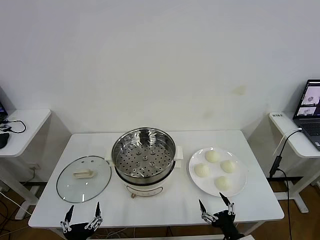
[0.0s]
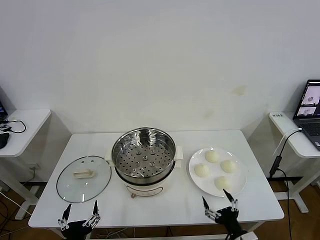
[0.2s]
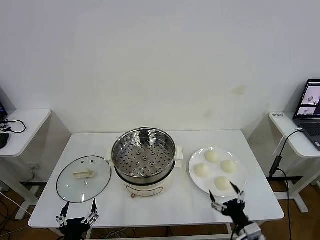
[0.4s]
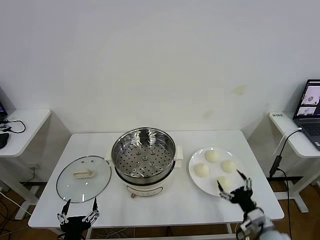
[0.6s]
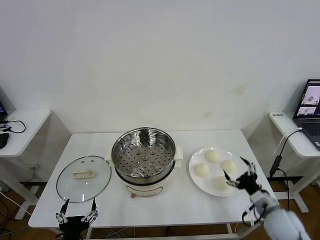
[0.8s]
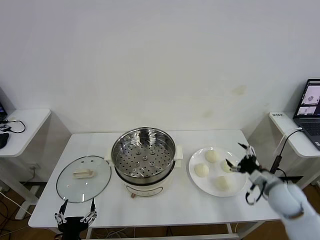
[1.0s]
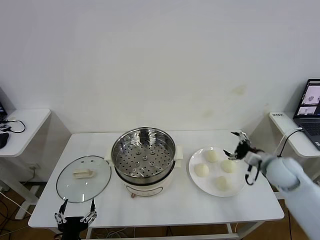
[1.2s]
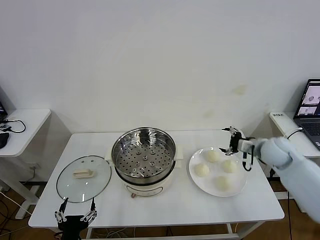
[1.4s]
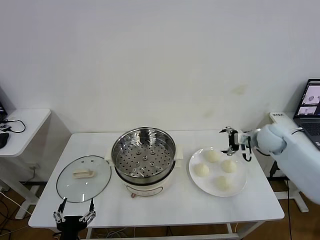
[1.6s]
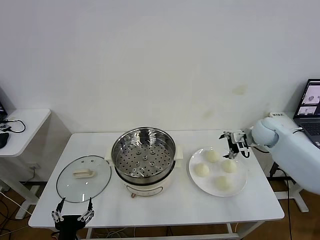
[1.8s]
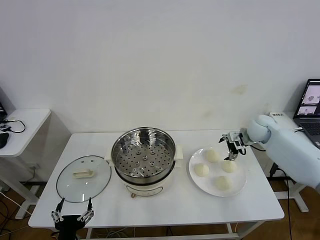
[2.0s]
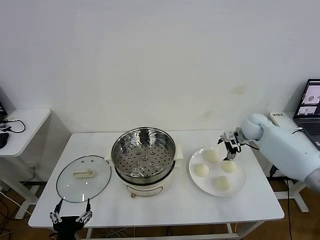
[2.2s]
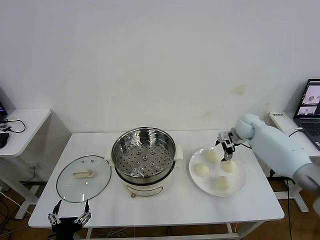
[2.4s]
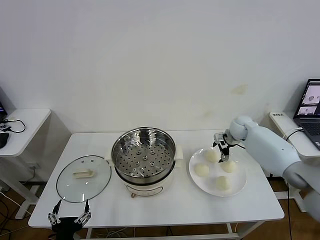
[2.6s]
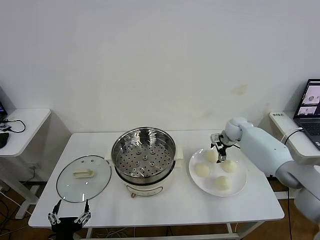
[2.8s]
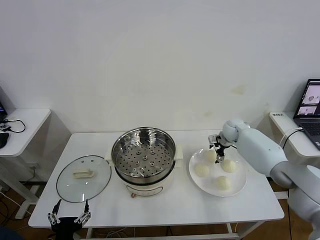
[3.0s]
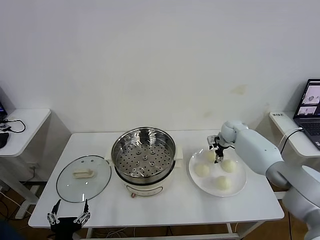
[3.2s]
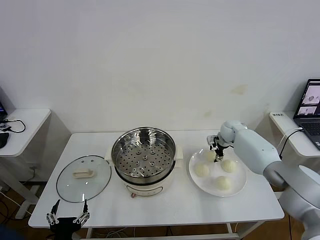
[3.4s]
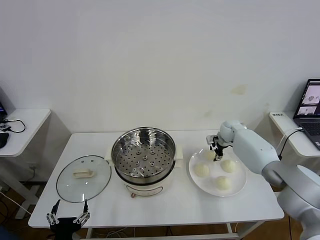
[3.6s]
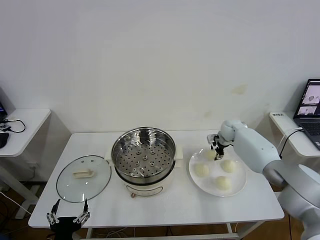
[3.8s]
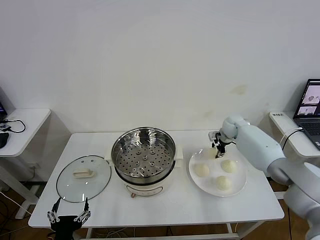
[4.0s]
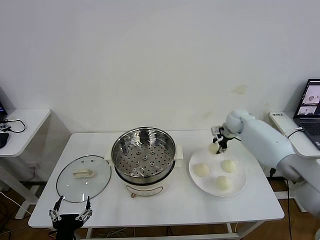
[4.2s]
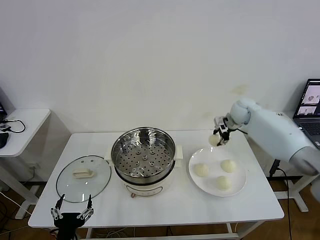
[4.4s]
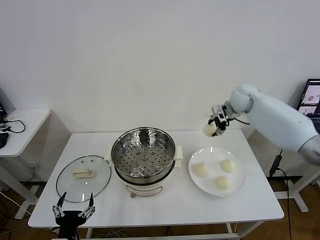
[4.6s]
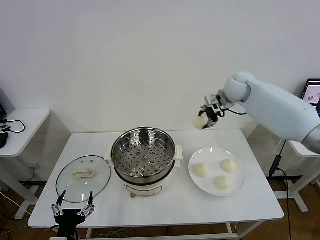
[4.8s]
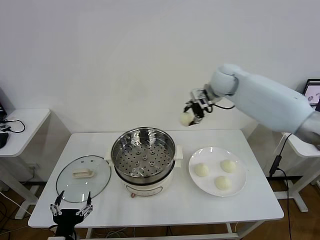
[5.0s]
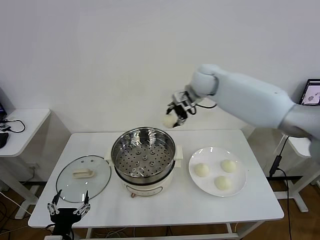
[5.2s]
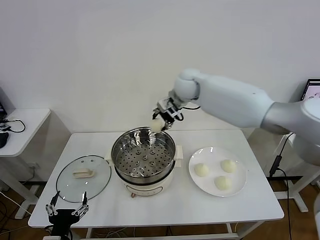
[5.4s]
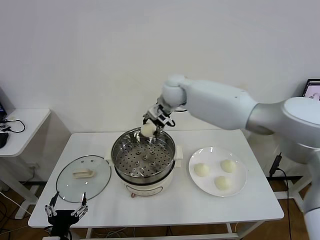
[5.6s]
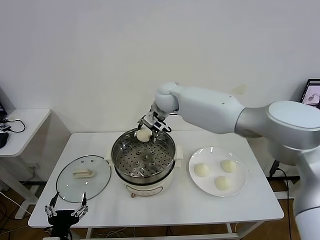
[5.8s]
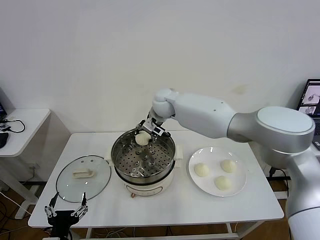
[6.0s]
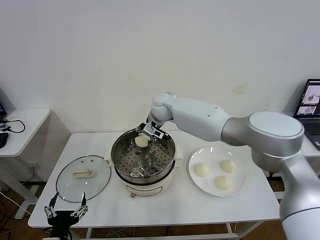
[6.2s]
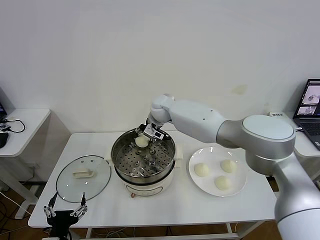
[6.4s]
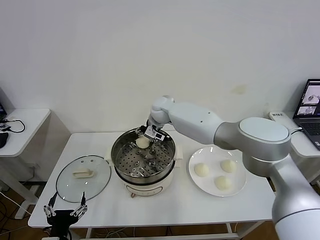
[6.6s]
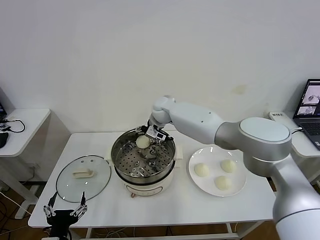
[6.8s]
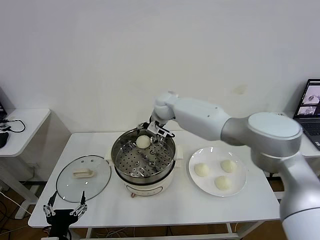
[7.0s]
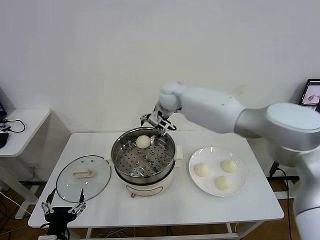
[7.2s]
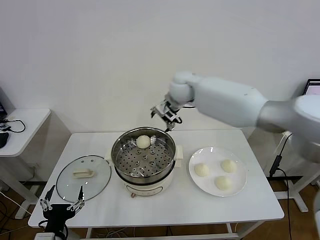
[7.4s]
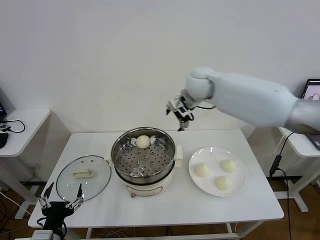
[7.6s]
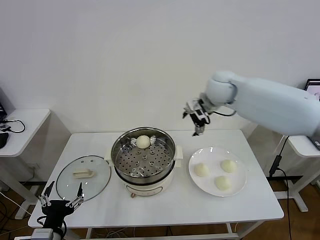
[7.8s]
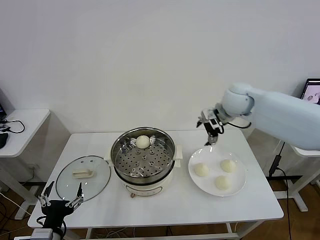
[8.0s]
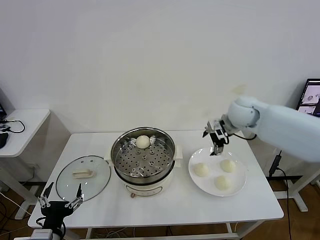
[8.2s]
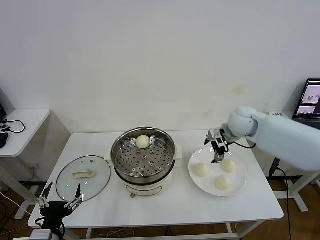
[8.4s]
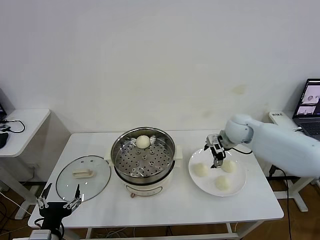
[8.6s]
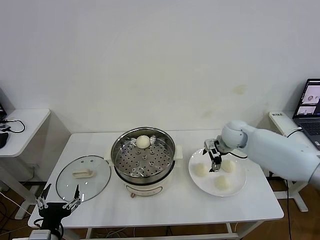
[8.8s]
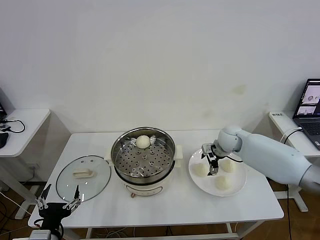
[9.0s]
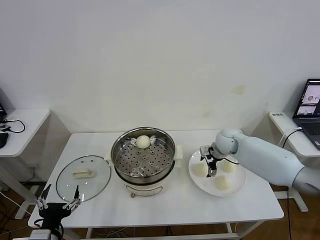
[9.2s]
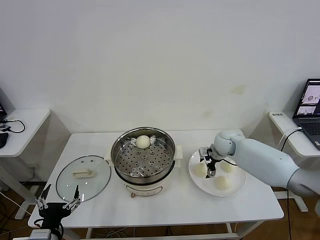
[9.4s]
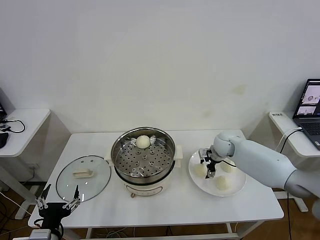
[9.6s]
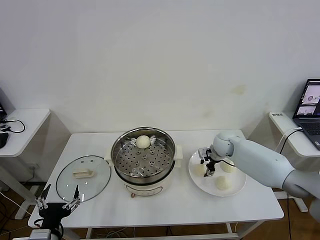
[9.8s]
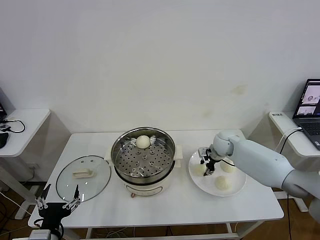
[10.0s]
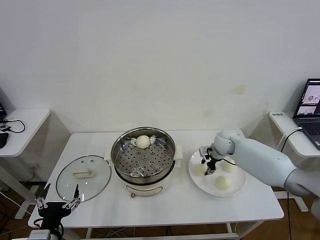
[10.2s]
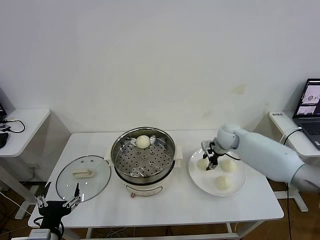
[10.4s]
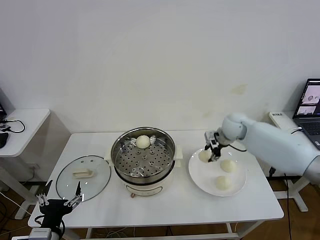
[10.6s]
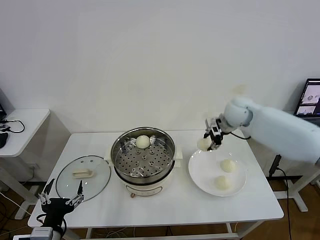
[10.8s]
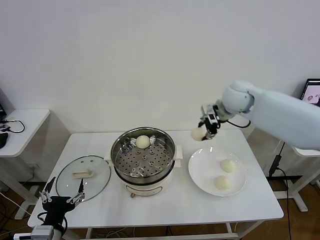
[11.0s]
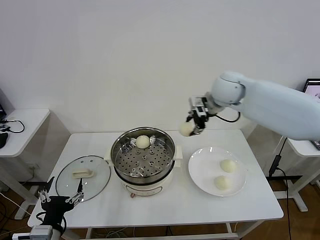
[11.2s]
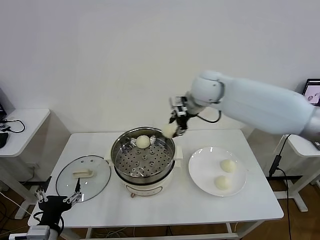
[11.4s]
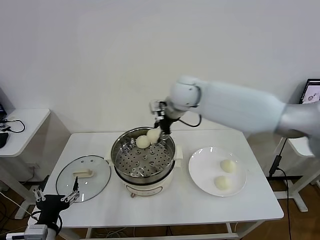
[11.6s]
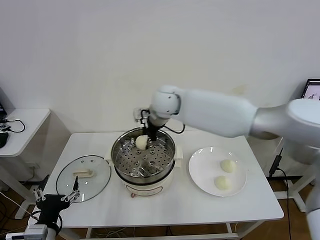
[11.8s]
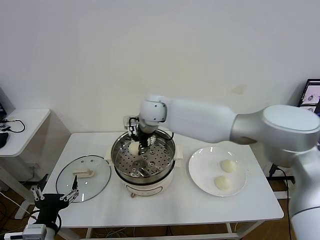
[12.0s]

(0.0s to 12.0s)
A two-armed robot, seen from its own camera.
Task of the whole recording: take steamed baozi put them in steamer then cover it.
Step, 0.0s - 3.6s: Grasp the baozi in the plate with right gripper.
Step, 4.0s - 6.6s: Place the baozi on the steamer with right gripper.
Step, 7.0s - 10.0s: Grasp the baozi in the plate with right gripper.
1.6s - 3.0s: The right gripper goes roughly 15 cm forward, downward and to the left.
3.0s - 4.4s: The right gripper goes roughly 15 cm upward, and closes.
4.4s - 6.0s: The right gripper is displaced to the left by roughly 30 cm.
6.0s - 7.6s: The right gripper travels to the right and upward by approximately 20 cm, and opens up.
7.6s - 9.0s: The right gripper heads downward and to the right, covering approximately 25 cm.
9.0s - 10.4s: The right gripper closes up.
10.4s - 12.0s: The right gripper goes some 30 cm to the left.

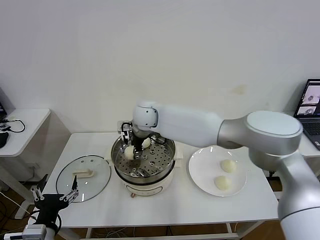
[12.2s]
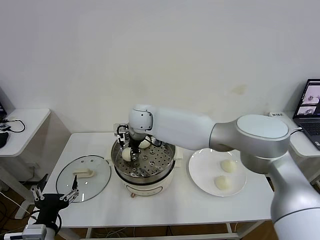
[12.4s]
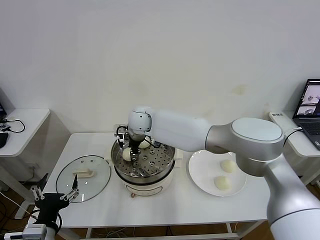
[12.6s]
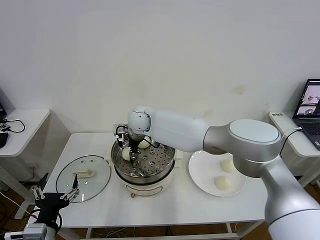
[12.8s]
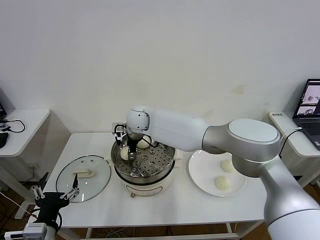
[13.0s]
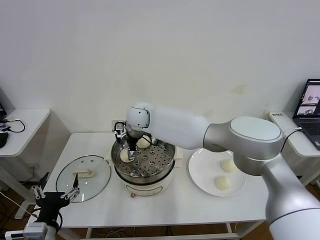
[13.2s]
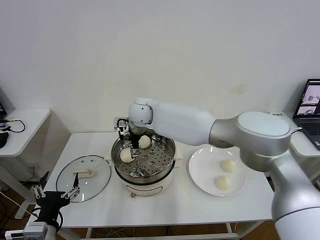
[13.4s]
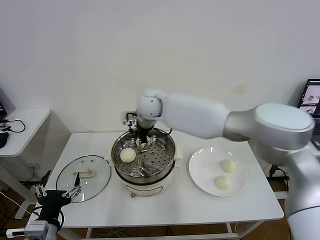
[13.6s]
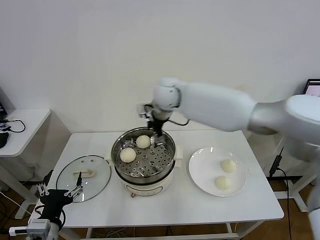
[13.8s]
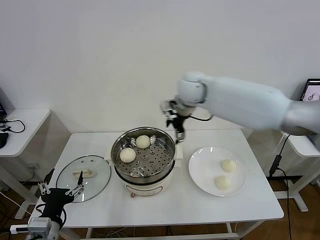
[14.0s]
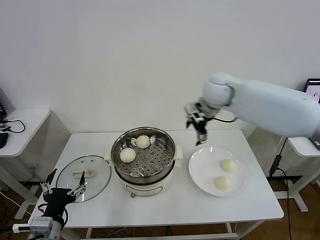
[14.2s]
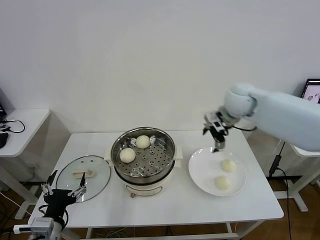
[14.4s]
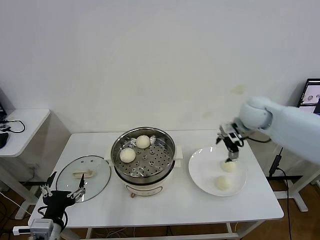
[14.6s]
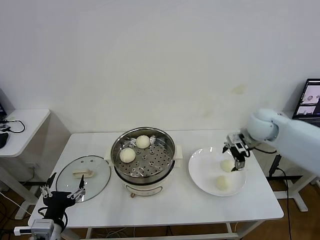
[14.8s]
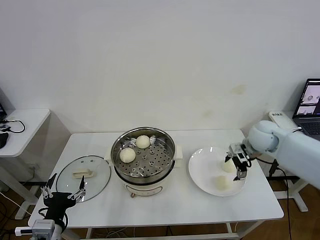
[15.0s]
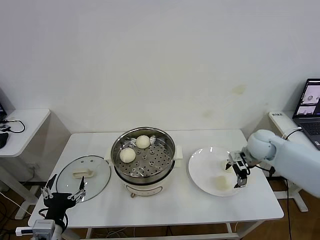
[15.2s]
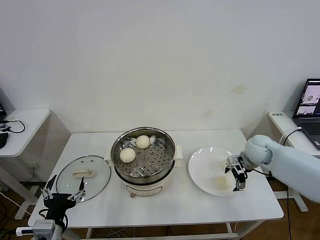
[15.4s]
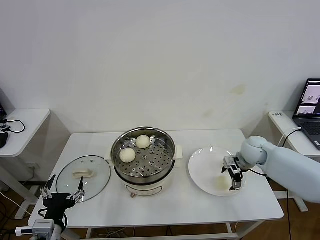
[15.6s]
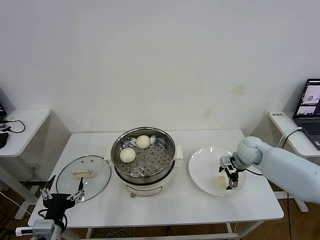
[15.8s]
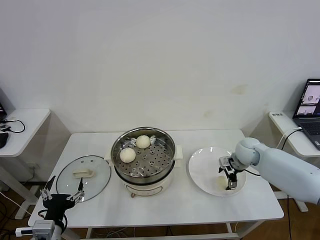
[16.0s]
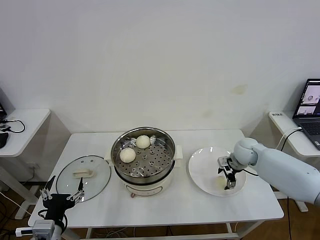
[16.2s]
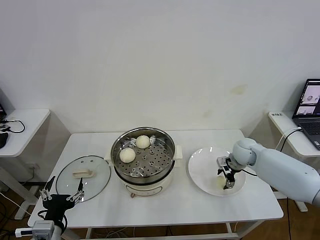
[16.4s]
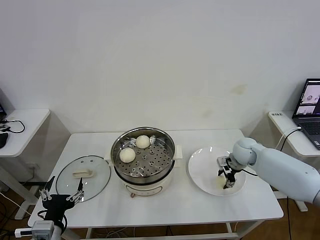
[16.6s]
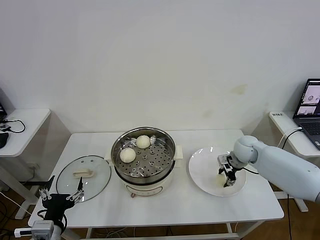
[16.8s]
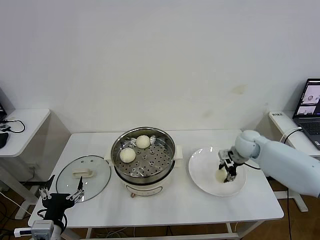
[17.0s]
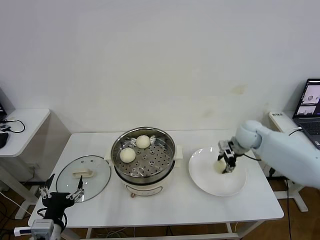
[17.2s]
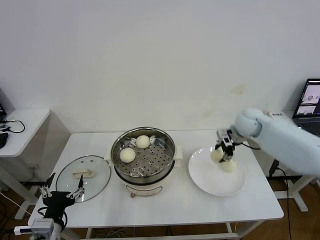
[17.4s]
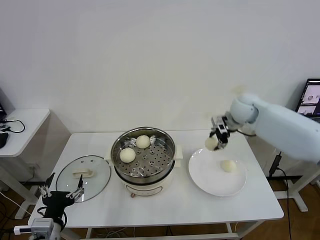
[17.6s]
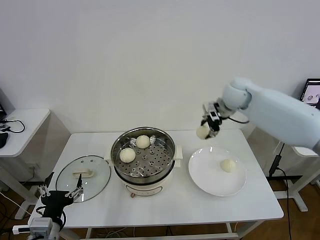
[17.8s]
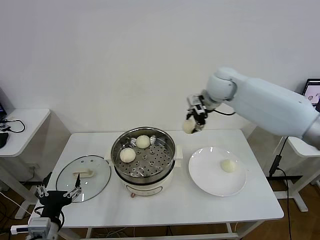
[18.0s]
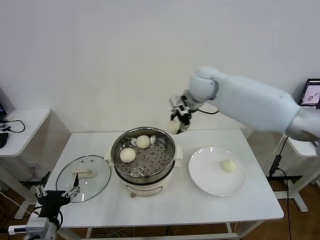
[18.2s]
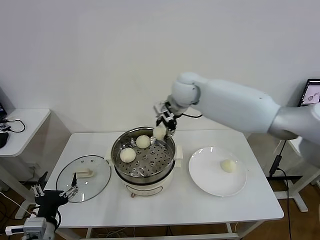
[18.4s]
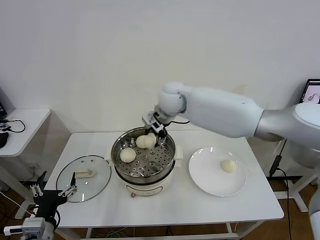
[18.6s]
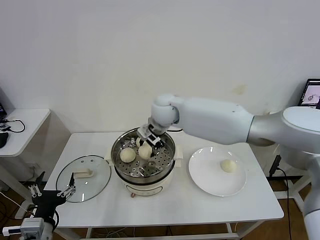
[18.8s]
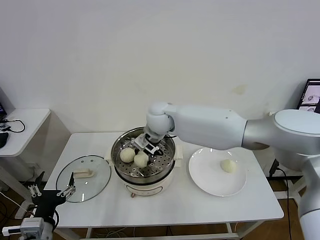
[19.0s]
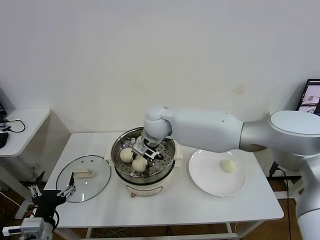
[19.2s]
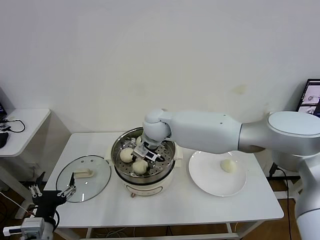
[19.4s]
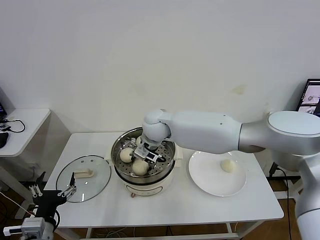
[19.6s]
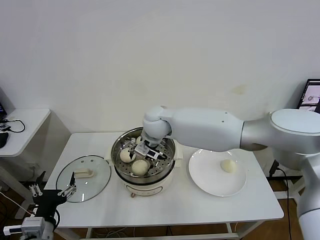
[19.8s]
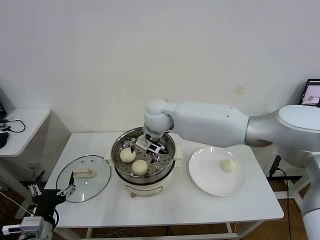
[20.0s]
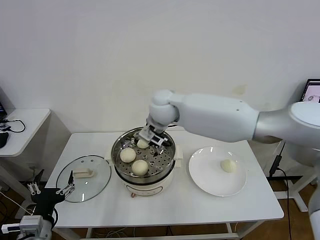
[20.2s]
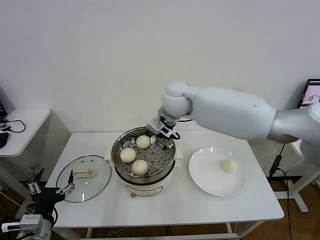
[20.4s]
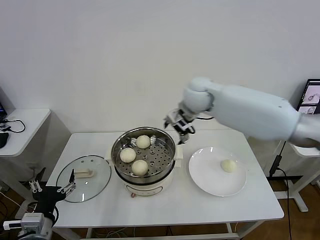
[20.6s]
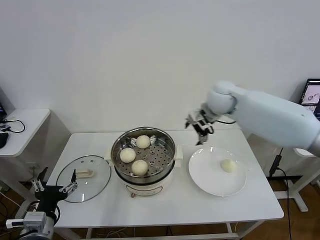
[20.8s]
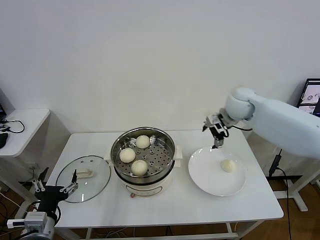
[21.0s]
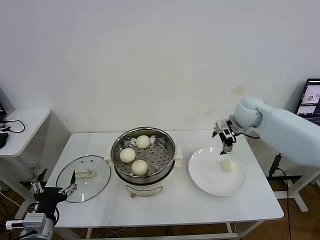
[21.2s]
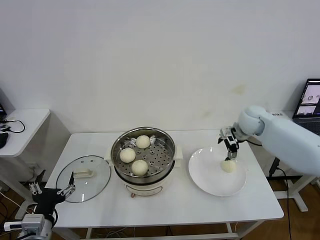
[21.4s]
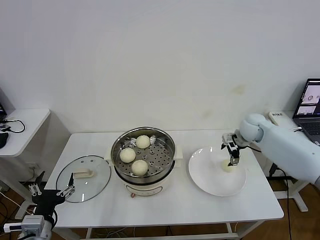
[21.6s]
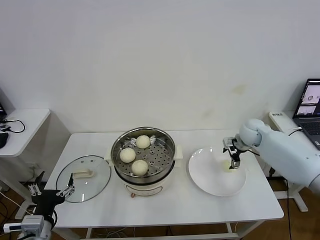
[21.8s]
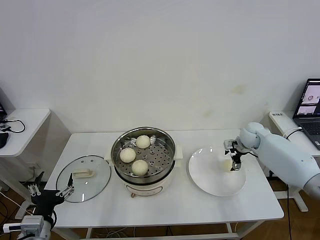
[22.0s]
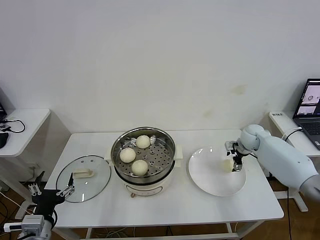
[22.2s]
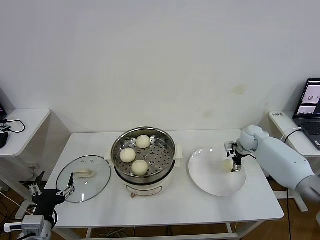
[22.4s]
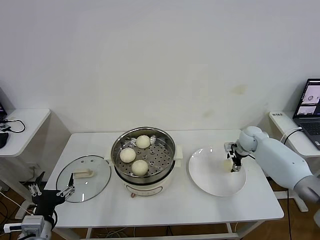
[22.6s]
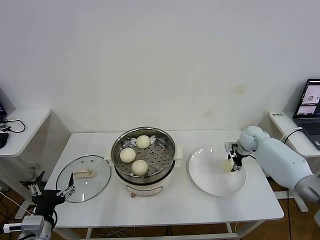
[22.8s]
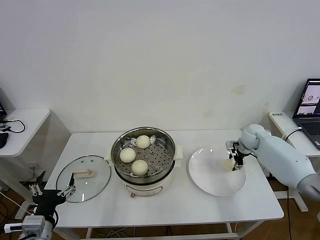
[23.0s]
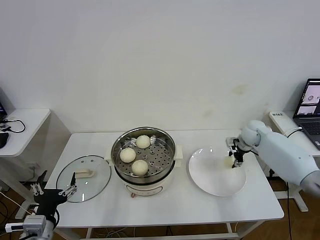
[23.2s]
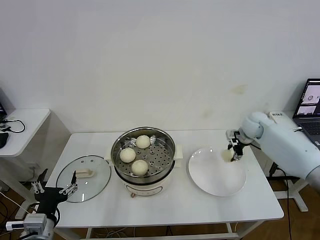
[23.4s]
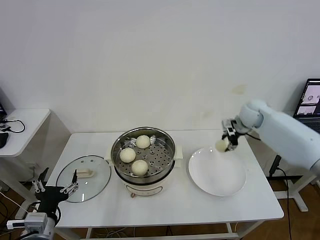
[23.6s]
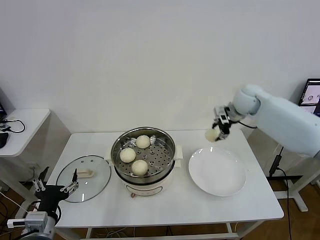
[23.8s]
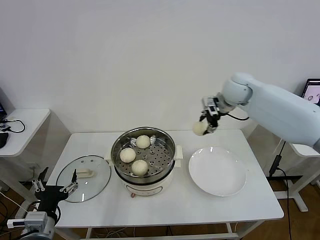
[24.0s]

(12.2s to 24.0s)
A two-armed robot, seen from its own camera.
Task of the whole recording: take steamed baozi put them in steamer then cover it.
Step, 13.4s - 16.8s: Grasp the baozi in the plate with right gripper.
Step, 17.0s - 19.6s: Place the baozi on the steamer with right gripper.
Step, 20.0s - 23.0s: Grasp the baozi in the plate with right gripper.
12.2s - 13.6s: The right gripper shifts some 10 cm upward and to the right, and opens.
13.6s - 15.2s: The right gripper goes some 40 cm to the right and downward.
15.2s - 16.6s: The right gripper moves approximately 5 cm, and closes.
16.6s - 18.2s: The right gripper goes some 30 cm upward and to the left.
18.2s - 19.6s: The right gripper is displaced to the left, downward and backward by some 15 cm, and opens.
19.6s - 21.0s: The right gripper travels to the right by approximately 30 cm.
21.0s - 22.6s: The right gripper moves downward and to the right, about 20 cm, and closes up.
22.6s - 24.0s: The right gripper is displaced upward and to the left by some 25 cm, and closes its fingers.
